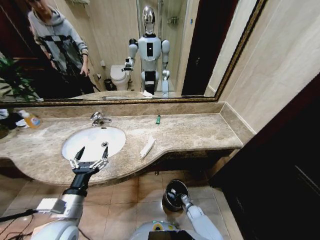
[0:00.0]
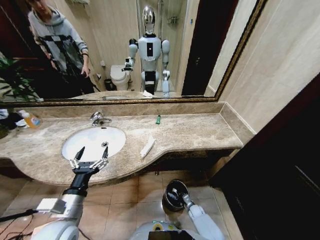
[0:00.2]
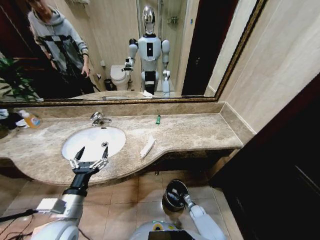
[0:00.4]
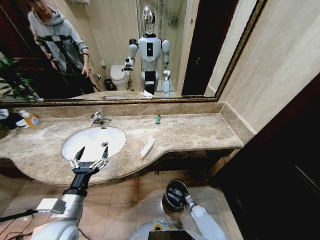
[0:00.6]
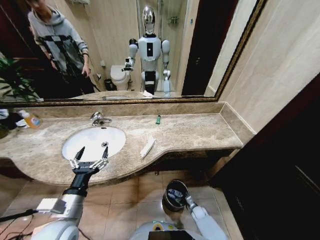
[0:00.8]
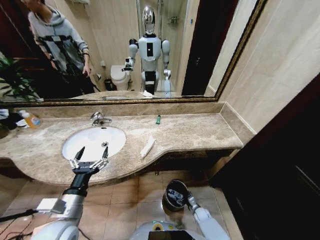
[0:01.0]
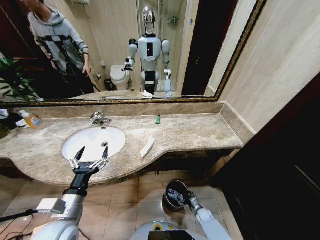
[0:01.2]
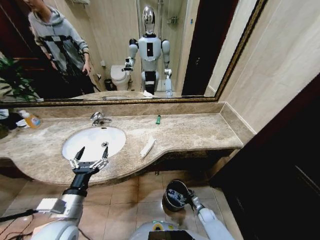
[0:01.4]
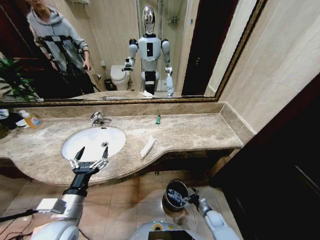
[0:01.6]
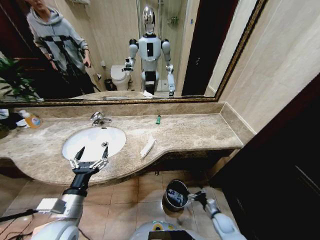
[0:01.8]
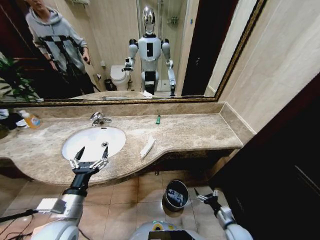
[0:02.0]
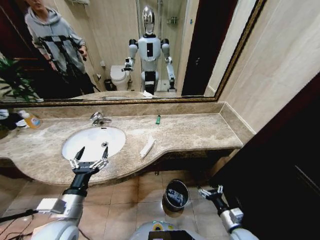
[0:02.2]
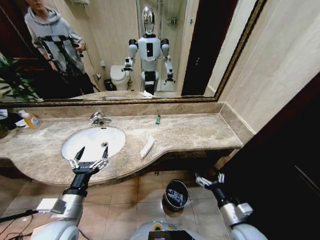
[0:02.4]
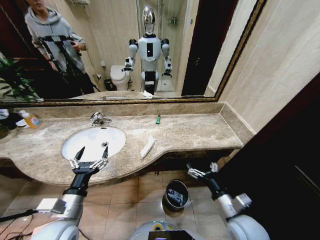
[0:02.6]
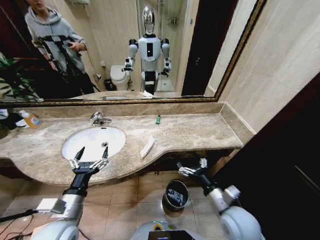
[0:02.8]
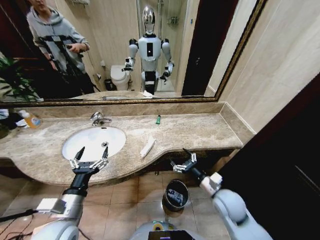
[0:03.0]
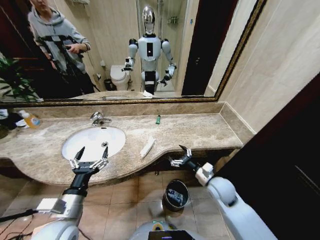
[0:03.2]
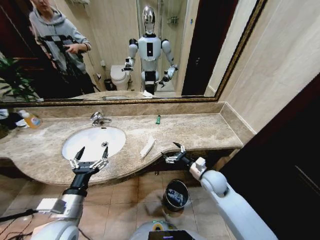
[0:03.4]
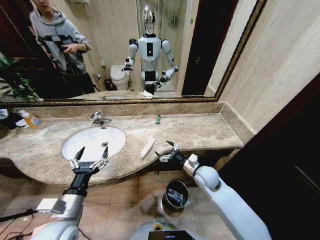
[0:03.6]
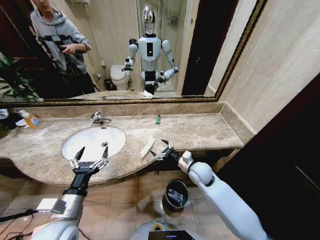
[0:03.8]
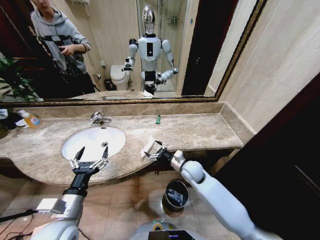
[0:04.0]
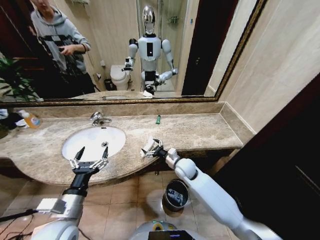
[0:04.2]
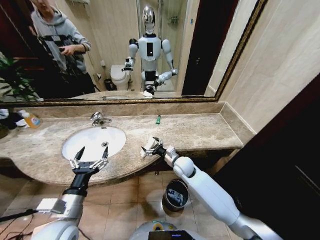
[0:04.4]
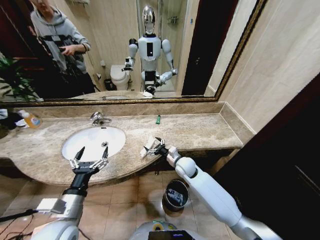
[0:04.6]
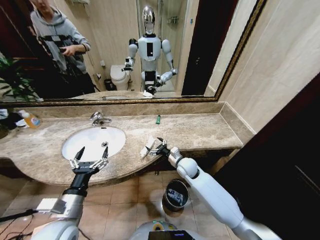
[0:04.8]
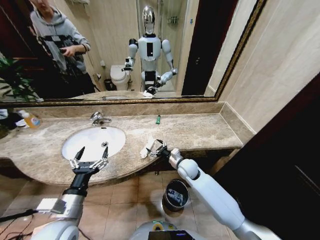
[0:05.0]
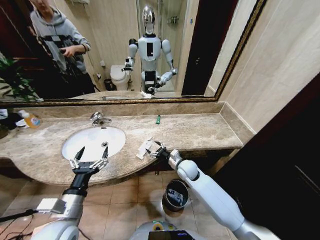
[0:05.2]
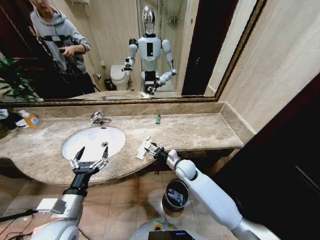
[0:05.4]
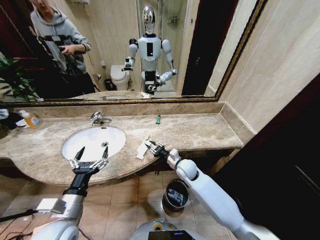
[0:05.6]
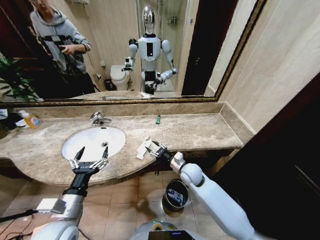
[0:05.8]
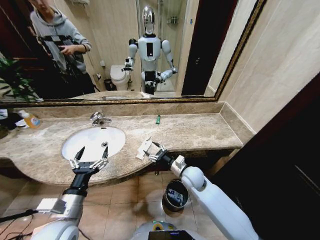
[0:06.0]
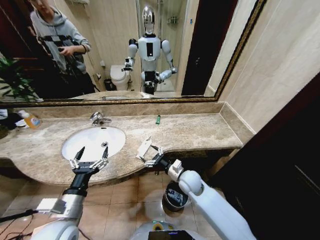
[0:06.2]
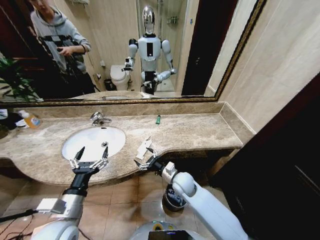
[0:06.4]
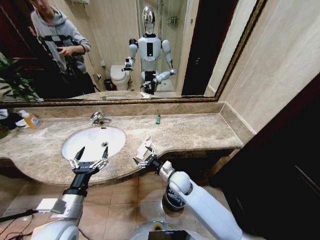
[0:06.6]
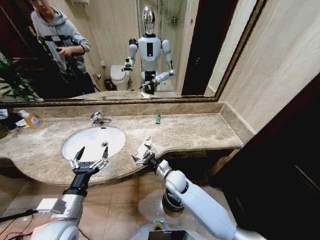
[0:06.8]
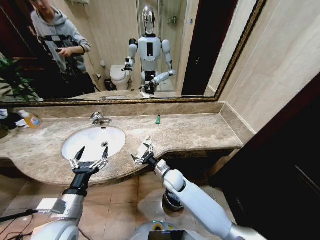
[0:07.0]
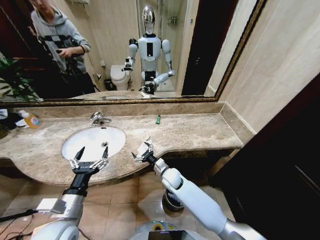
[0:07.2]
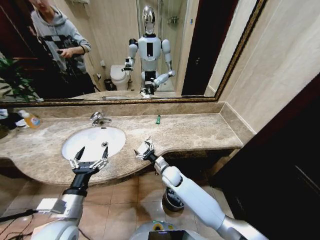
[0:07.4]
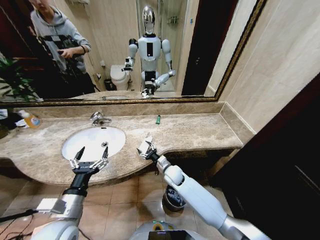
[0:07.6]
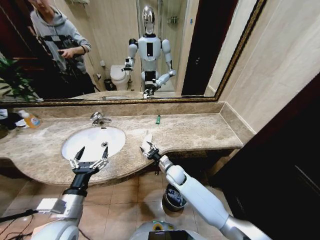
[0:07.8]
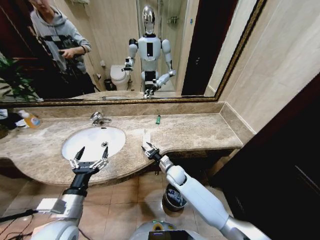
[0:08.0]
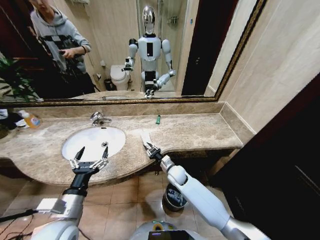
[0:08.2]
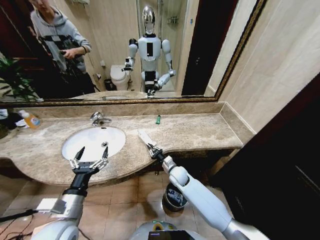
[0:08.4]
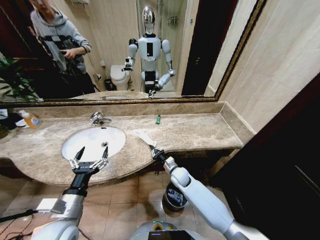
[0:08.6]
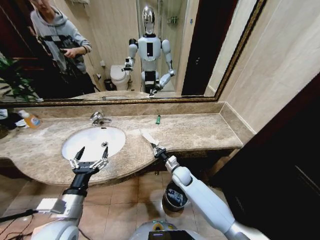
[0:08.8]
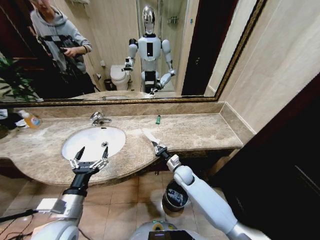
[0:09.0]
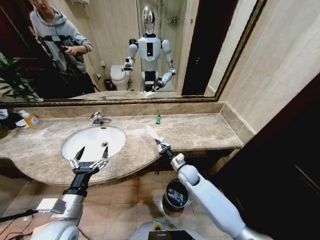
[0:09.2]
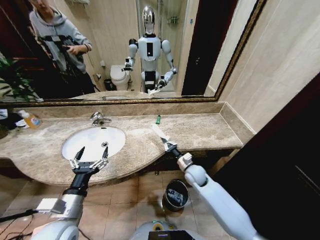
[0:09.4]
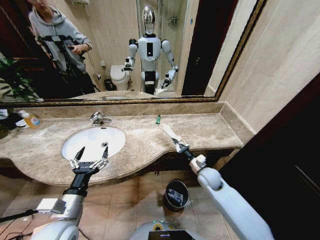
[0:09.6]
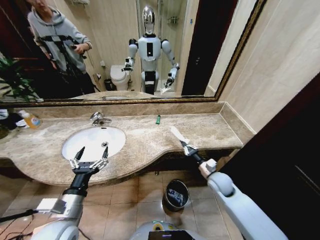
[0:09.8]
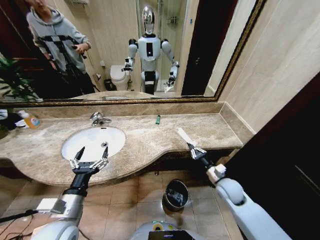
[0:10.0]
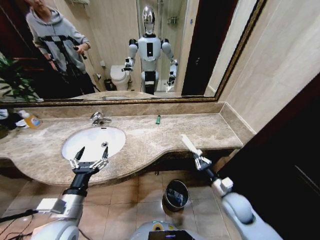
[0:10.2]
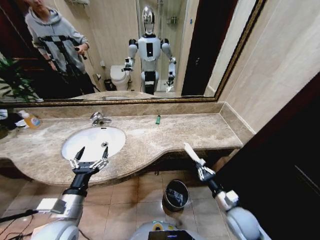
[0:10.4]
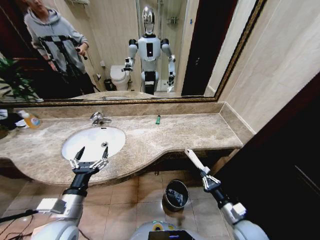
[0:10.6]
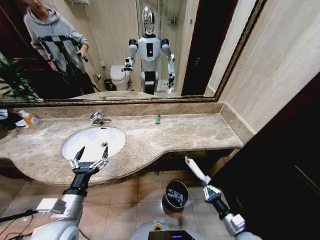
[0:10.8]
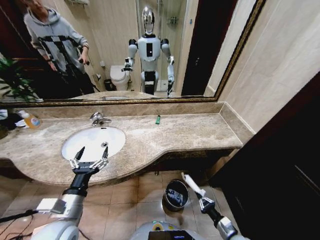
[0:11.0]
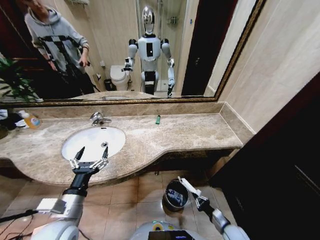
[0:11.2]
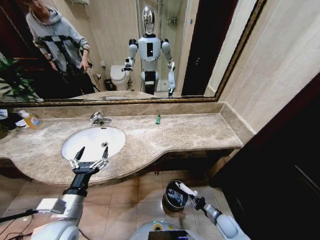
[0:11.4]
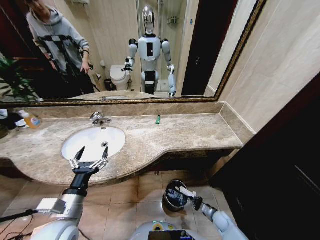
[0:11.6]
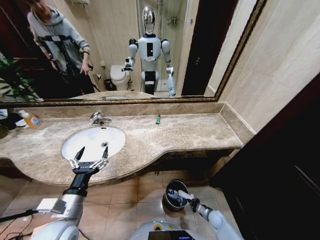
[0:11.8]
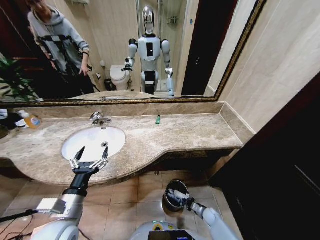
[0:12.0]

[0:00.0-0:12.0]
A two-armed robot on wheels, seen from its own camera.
Task of the whole recording: Pick up the trash from the sink and place it in the trash bin.
0:00.0 to 0:01.6: The right gripper heads to the right and upward, covering approximately 10 cm, and opens.
0:01.6 to 0:03.0: The right gripper shifts about 35 cm upward.
0:03.0 to 0:04.4: The right gripper travels forward and to the left by roughly 20 cm.
0:04.4 to 0:06.0: The right gripper shifts approximately 5 cm backward, and closes, then reopens.
0:06.0 to 0:07.6: The right gripper goes about 10 cm to the left and downward.
0:07.6 to 0:09.0: The right gripper heads to the right, covering roughly 5 cm, and closes up.
0:09.0 to 0:10.4: The right gripper heads backward and to the right, covering roughly 25 cm.
0:10.4 to 0:12.0: The right gripper travels downward by approximately 25 cm.

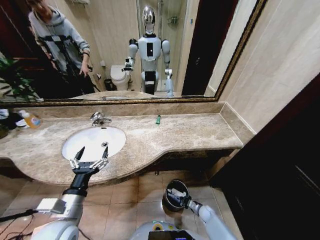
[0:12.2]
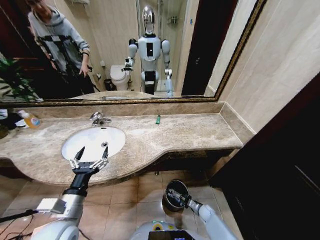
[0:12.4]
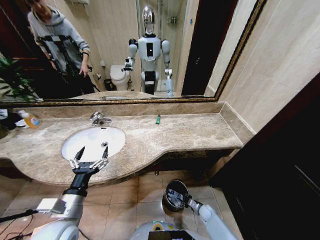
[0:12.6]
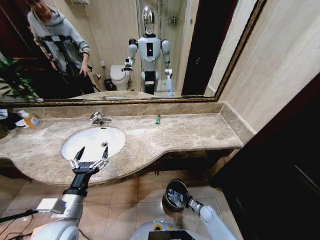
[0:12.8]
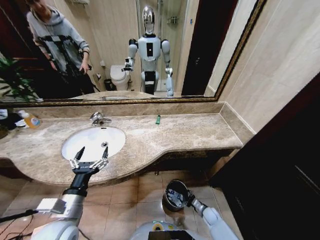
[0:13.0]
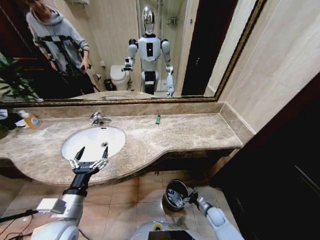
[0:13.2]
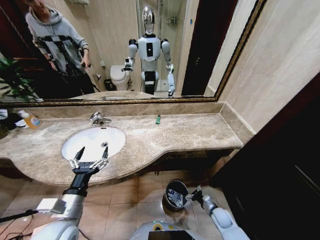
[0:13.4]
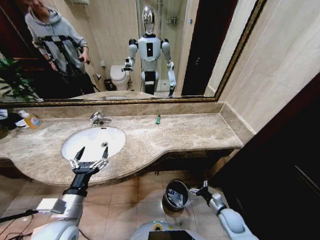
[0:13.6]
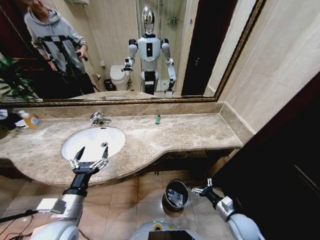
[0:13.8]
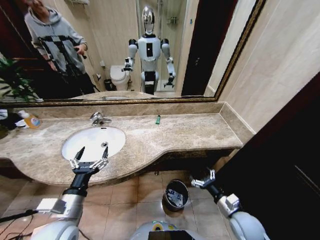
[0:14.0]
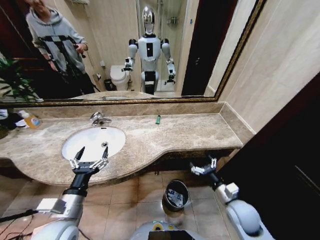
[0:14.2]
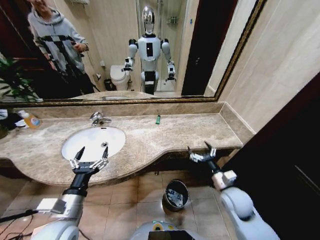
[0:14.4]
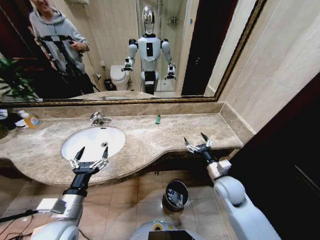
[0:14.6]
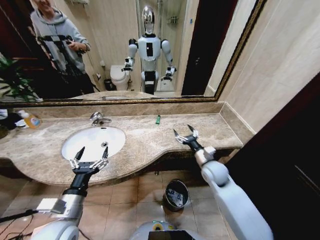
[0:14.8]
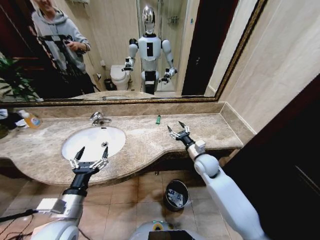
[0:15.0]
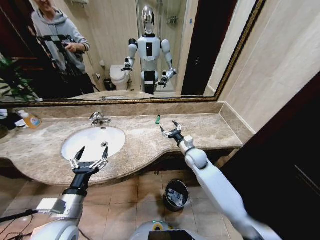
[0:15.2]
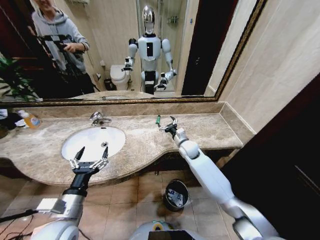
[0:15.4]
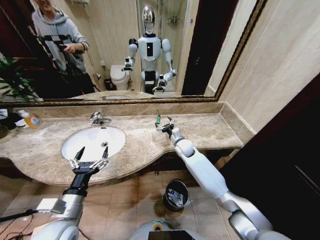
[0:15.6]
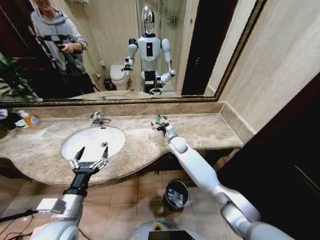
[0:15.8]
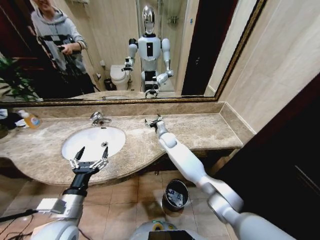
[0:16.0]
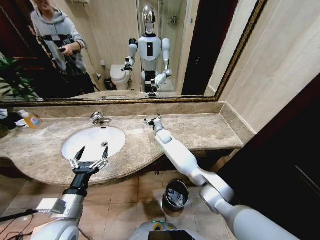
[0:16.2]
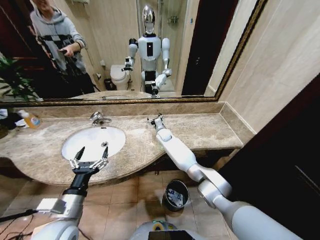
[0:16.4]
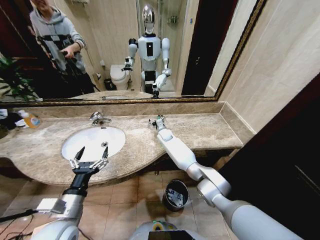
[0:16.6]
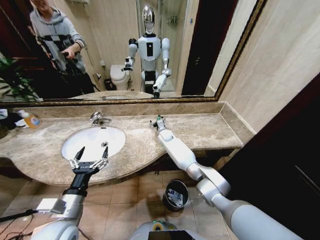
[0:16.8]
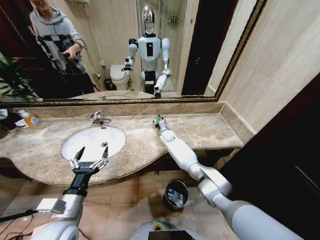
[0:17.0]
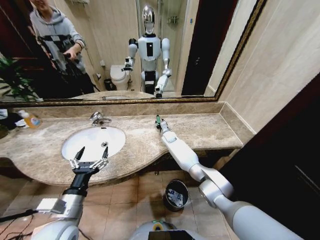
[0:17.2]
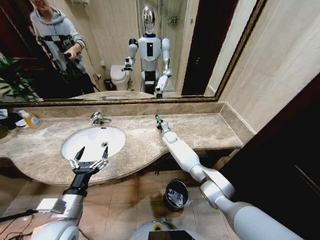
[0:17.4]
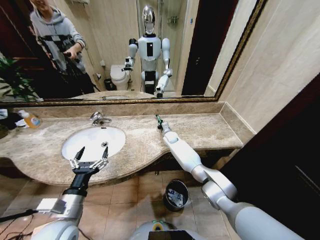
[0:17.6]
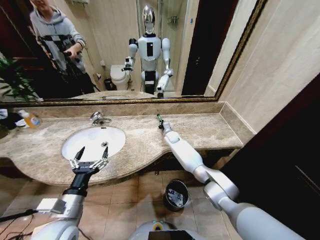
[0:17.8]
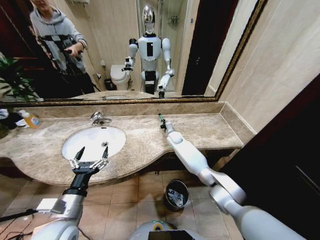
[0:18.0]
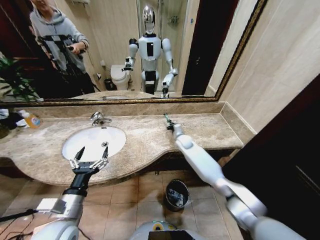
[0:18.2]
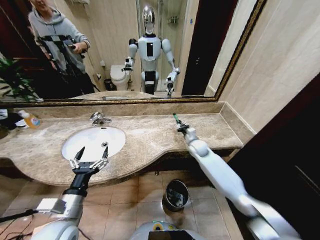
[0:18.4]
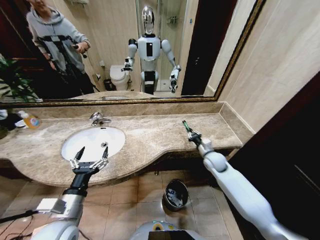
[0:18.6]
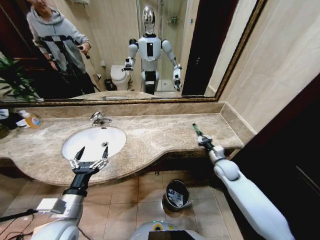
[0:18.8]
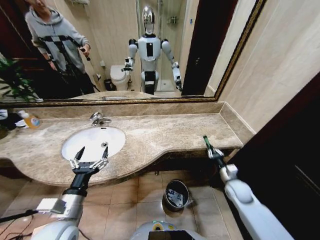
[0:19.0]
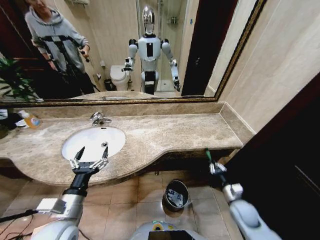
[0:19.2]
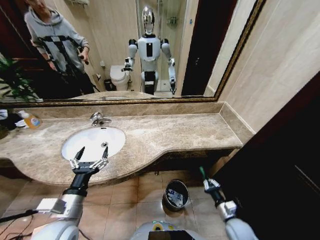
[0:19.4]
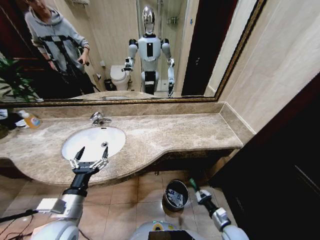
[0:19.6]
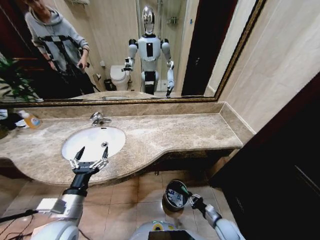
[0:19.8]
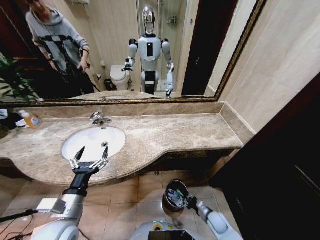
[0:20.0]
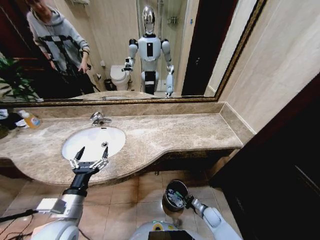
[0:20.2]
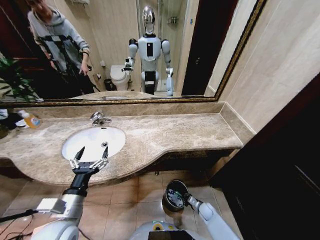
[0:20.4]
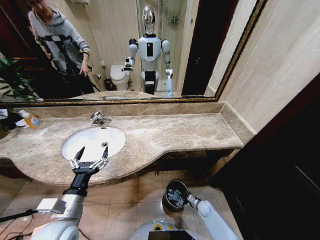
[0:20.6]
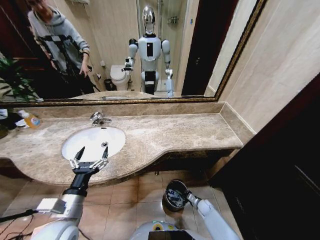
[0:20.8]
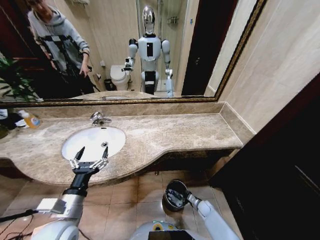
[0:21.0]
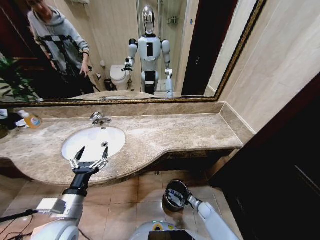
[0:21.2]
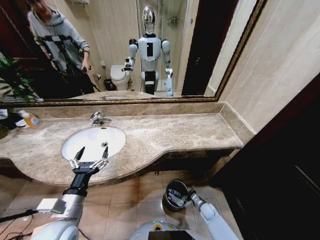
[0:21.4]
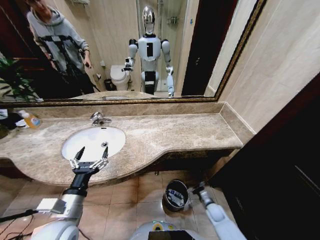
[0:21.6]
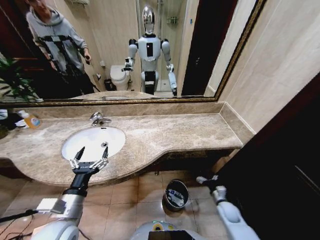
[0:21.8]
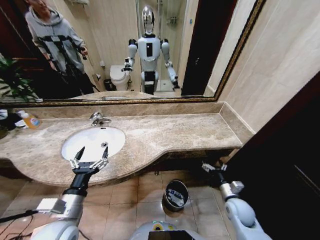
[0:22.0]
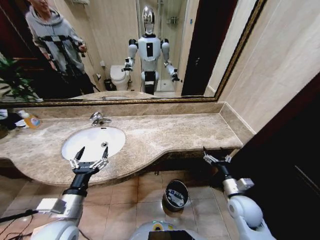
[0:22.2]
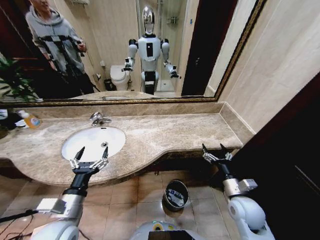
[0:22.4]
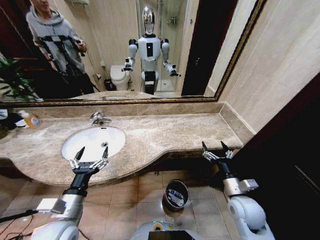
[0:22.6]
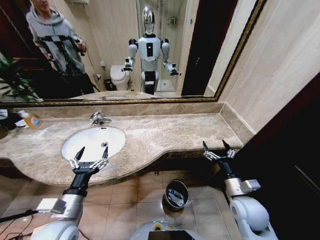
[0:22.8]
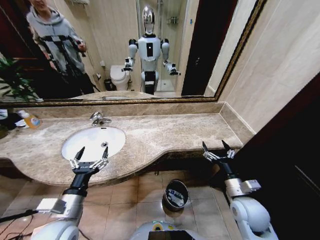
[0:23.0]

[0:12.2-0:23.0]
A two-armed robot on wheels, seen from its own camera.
Task of the whole recording: Pick up the trash from the sink and place it in the trash bin.
0:12.2 to 0:13.8: The right gripper moves upward, approximately 25 cm, and opens.
0:13.8 to 0:15.2: The right gripper heads forward, to the left and upward, covering roughly 30 cm.
0:15.2 to 0:16.8: The right gripper is displaced forward and to the left by approximately 25 cm.
0:16.8 to 0:18.4: The right gripper moves to the right and backward, approximately 20 cm, and closes its fingers.
0:18.4 to 0:20.0: The right gripper shifts about 40 cm backward and downward.
0:20.0 to 0:21.4: The right gripper moves downward and forward, approximately 10 cm, and opens.
0:21.4 to 0:23.0: The right gripper moves upward, approximately 35 cm.
